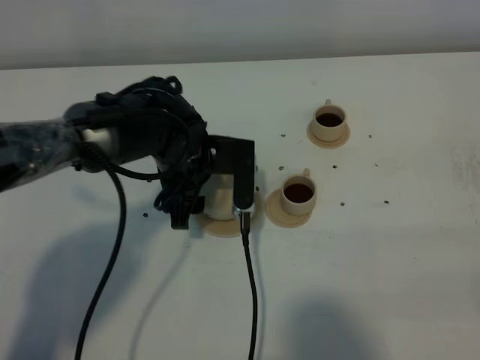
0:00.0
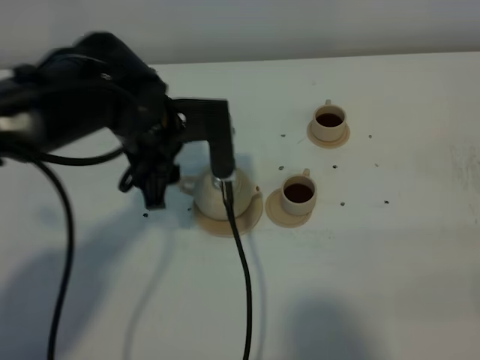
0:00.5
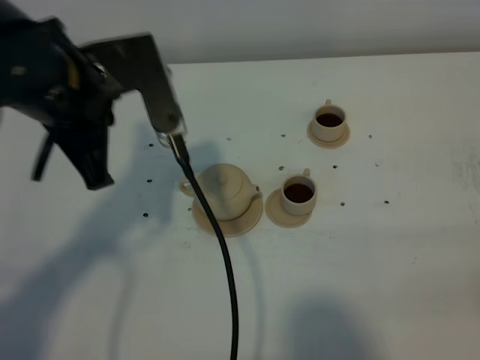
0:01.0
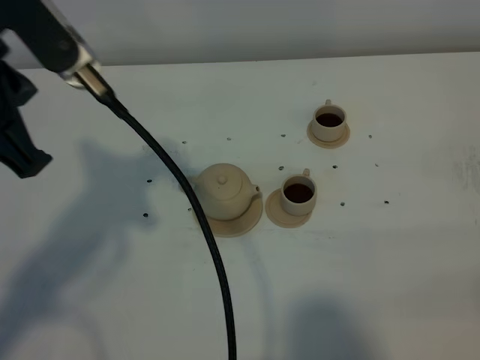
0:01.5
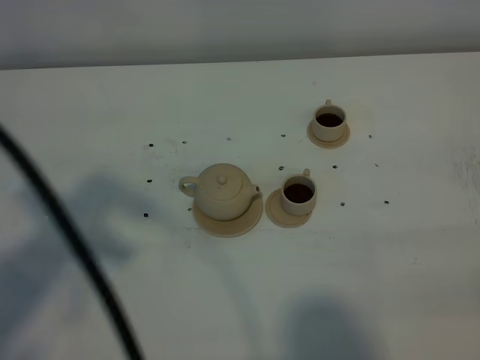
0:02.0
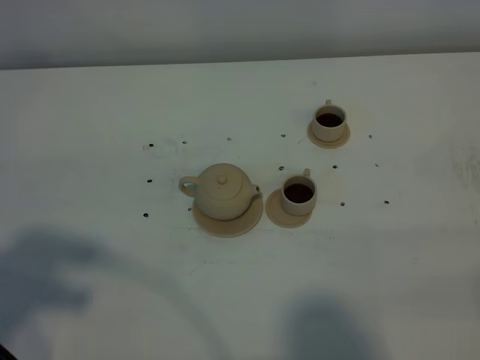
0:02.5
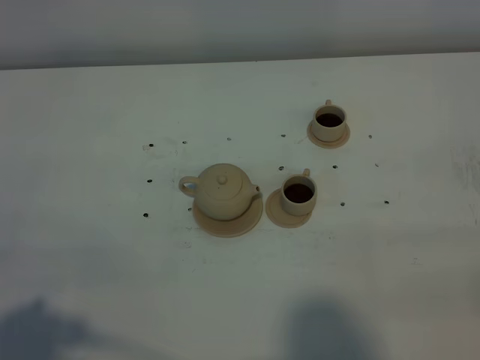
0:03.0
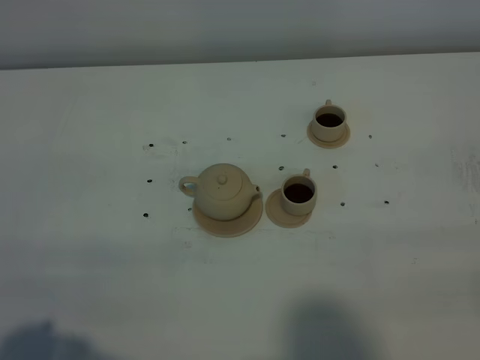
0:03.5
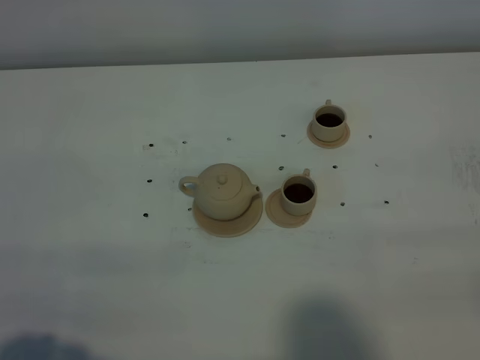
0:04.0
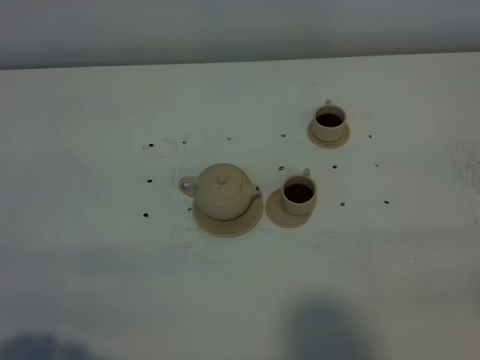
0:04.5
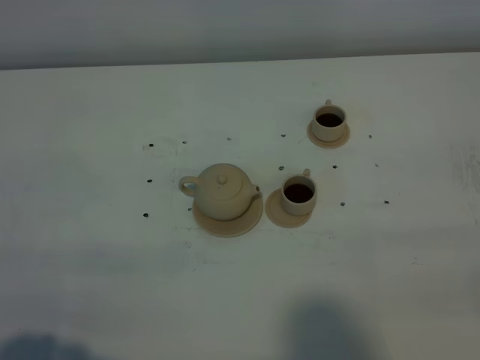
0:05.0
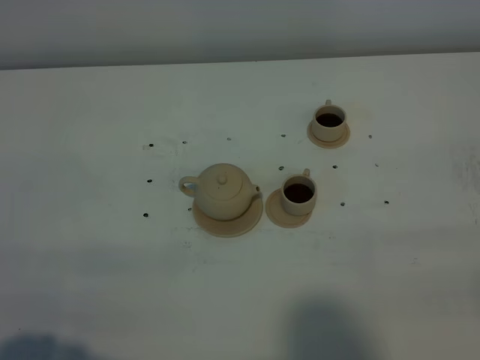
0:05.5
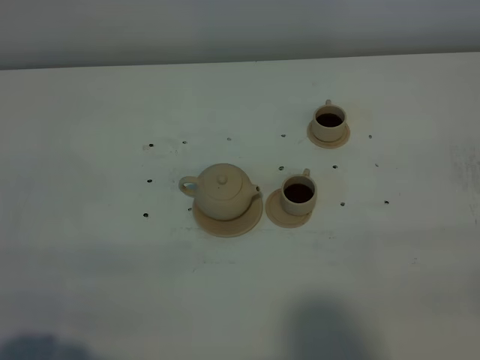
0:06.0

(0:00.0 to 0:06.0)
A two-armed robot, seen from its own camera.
Task of the whole recording: grasp the brown teapot and pour the tea into the two brown teacups one by one, put the brown teapot back in its original place.
0:00.0 - 0:02.0: The left gripper is displaced upward, backward and to the left by about 40 cm, and closes up.
0:02.0 - 0:04.0: The left gripper heads downward and backward, covering approximately 20 cm.
0:04.0 - 0:06.0: The two grippers keep their place.
